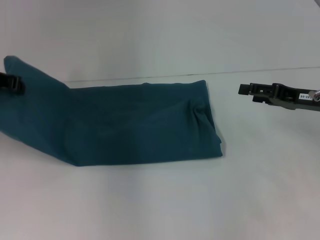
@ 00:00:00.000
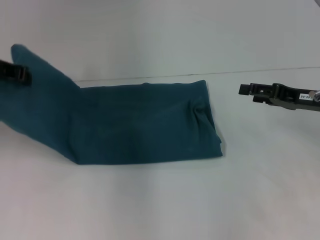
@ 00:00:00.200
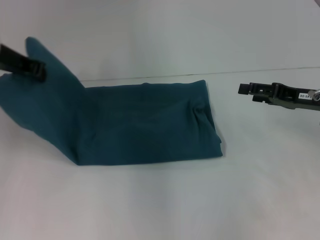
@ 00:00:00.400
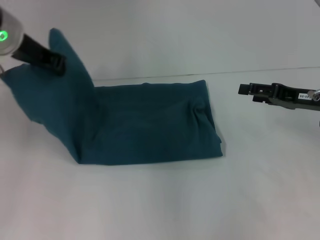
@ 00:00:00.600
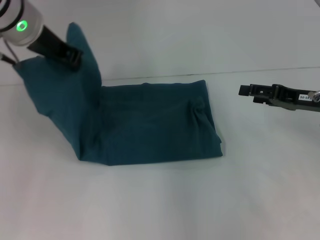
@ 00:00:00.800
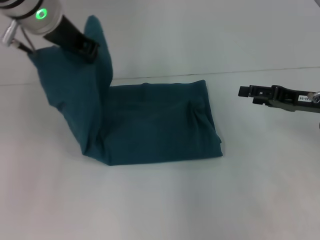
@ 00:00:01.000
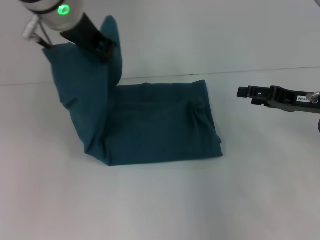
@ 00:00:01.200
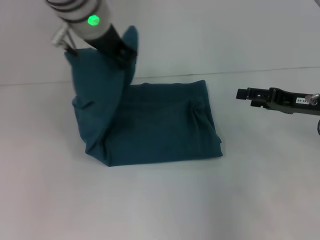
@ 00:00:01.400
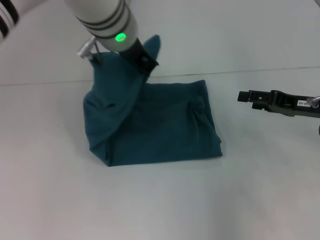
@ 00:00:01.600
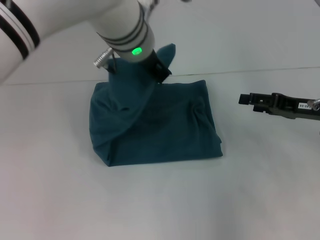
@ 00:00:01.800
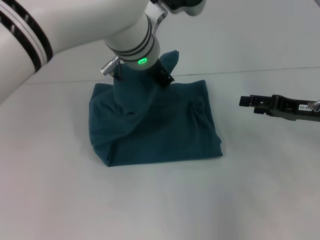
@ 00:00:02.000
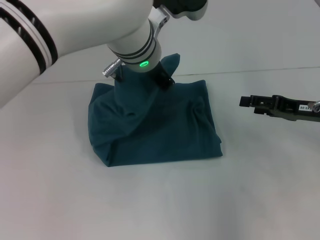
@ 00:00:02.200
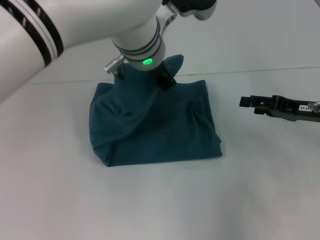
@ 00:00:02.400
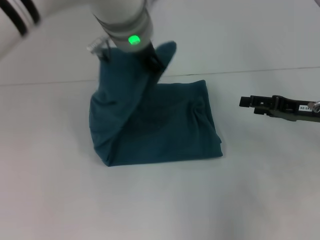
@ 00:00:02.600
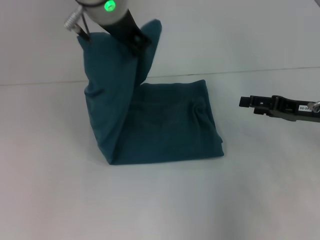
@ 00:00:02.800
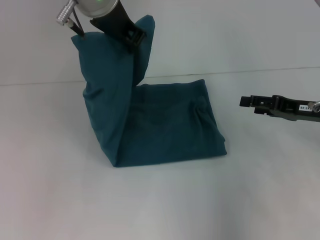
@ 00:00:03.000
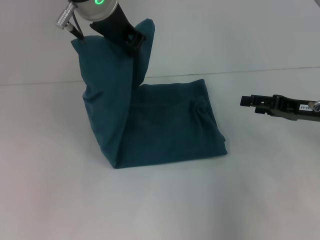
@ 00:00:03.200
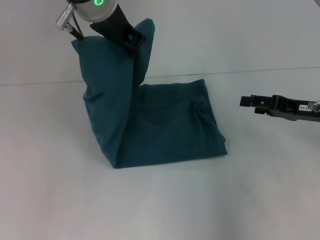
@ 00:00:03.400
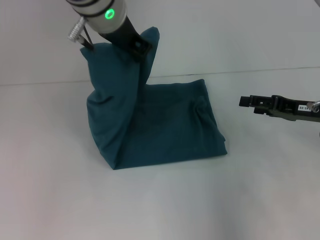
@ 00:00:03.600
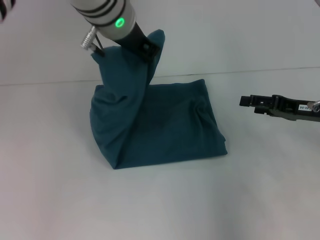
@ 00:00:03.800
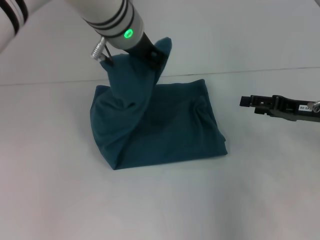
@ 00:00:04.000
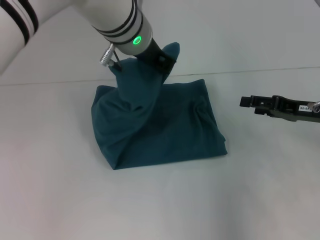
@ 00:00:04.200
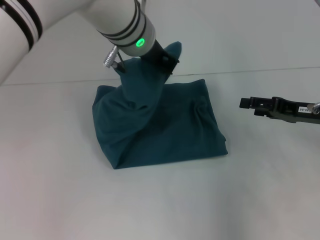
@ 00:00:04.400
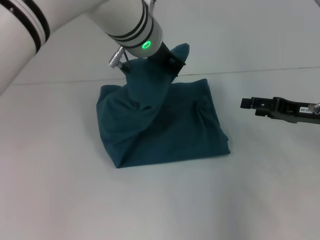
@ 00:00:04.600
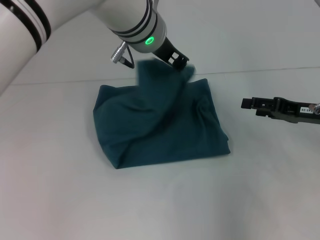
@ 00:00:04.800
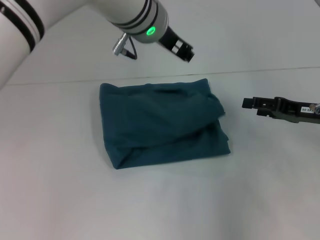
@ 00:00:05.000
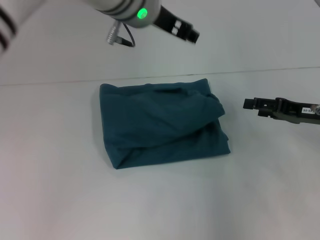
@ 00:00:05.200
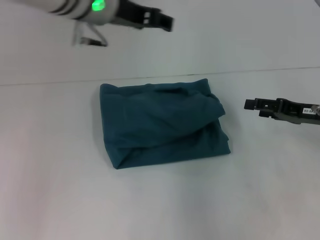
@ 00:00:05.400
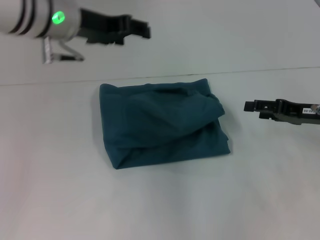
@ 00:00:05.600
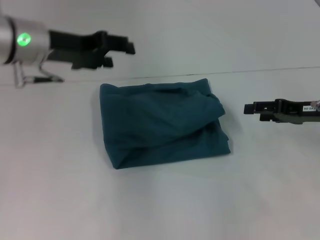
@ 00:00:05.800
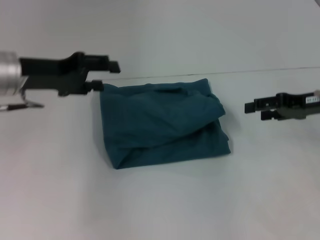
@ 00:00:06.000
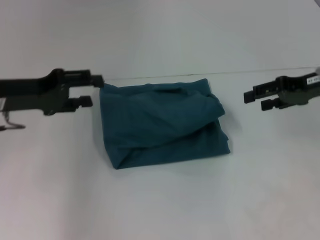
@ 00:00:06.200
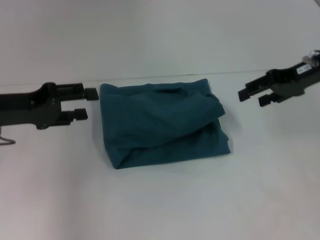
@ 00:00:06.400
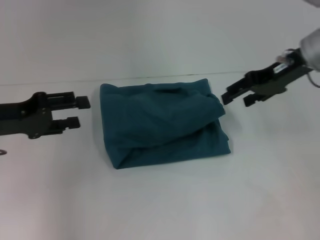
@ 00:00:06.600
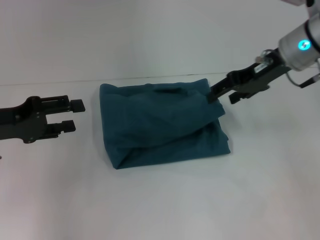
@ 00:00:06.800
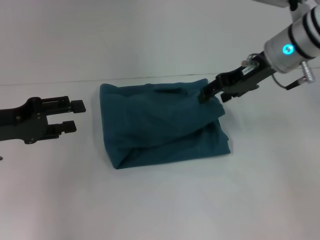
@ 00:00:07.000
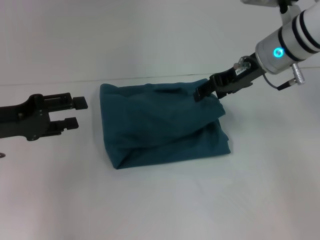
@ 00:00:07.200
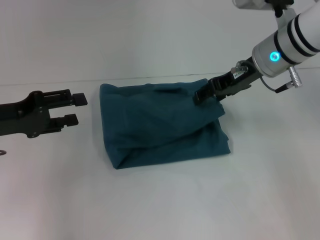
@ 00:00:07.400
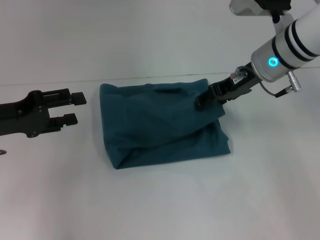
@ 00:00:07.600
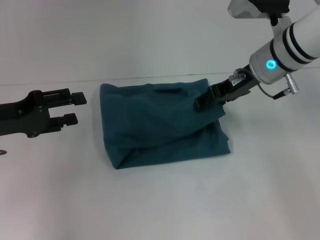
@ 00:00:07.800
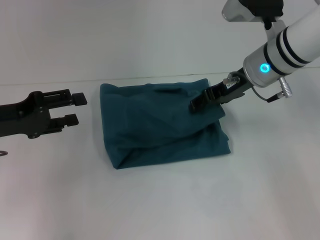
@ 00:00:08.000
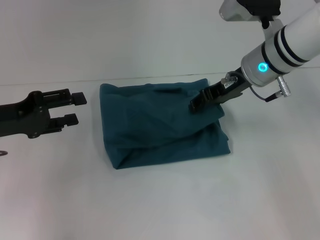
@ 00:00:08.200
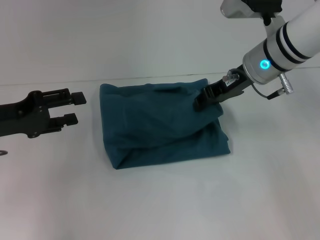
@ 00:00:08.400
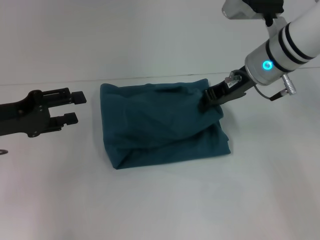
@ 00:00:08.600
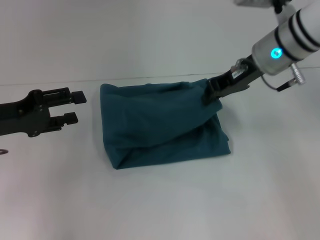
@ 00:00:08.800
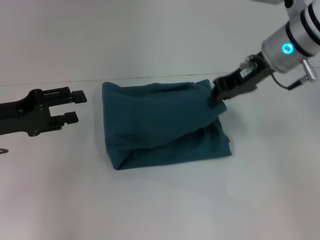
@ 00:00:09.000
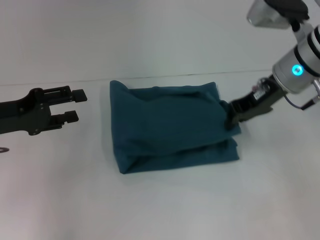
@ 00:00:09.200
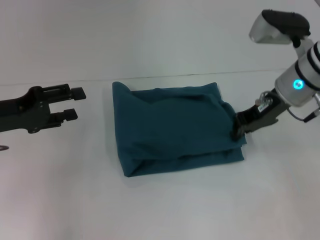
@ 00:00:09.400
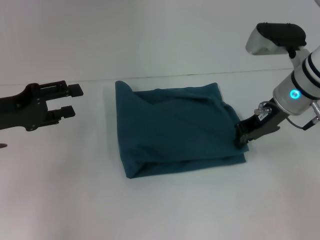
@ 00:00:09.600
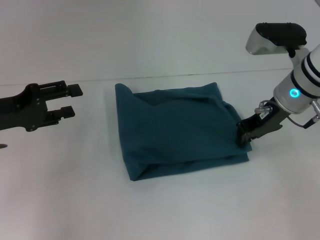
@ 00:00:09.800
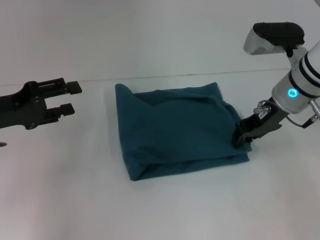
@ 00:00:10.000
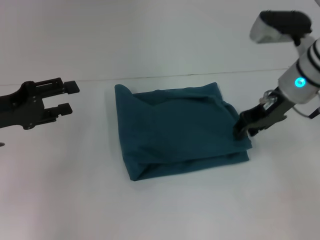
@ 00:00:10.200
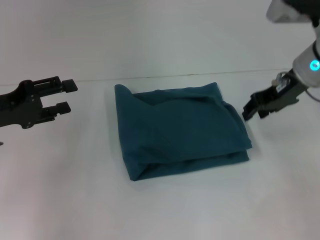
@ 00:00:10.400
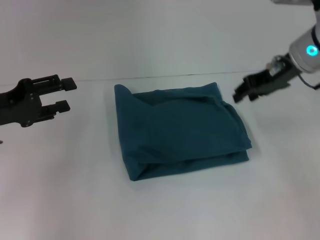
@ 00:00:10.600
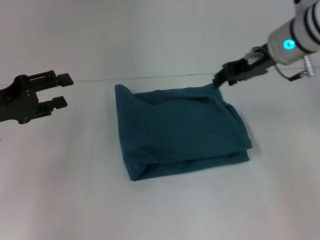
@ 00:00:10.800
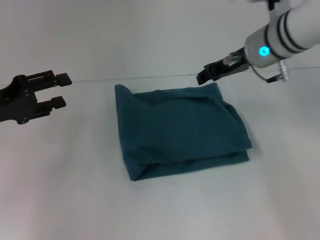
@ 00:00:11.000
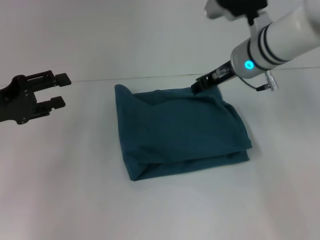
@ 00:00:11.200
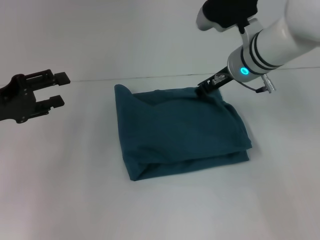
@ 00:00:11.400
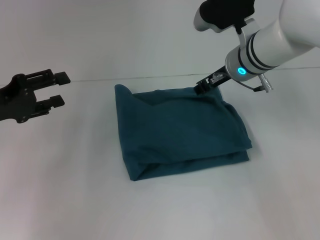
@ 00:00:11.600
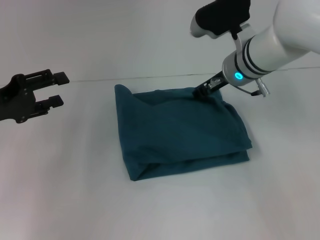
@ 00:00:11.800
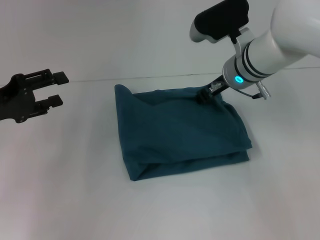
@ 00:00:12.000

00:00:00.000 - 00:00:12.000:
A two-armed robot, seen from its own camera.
Step, 00:00:00.000 - 00:00:05.000: Fold the clothes to the left.
00:00:00.000 - 00:00:01.600: The left gripper travels to the right by about 25 cm.
00:00:01.600 - 00:00:03.000: The left gripper changes place by roughly 5 cm.
00:00:03.000 - 00:00:04.400: The left gripper heads downward, covering some 5 cm.
00:00:04.400 - 00:00:06.000: The left gripper moves to the left, roughly 20 cm, and opens its fingers.
00:00:06.000 - 00:00:07.600: The left gripper goes roughly 10 cm to the left and backward. Meanwhile the right gripper goes about 15 cm to the left and forward.
00:00:07.600 - 00:00:09.000: The right gripper closes up.
00:00:09.000 - 00:00:10.400: The right gripper opens.
00:00:10.400 - 00:00:12.000: The right gripper goes approximately 10 cm to the left.

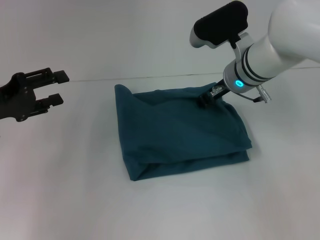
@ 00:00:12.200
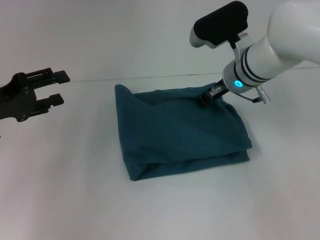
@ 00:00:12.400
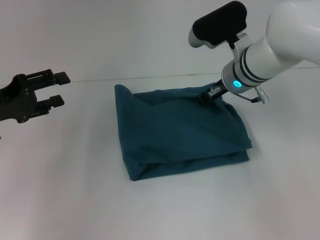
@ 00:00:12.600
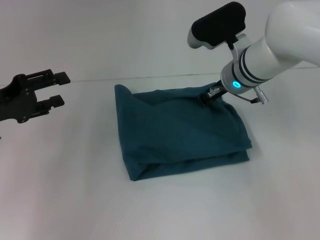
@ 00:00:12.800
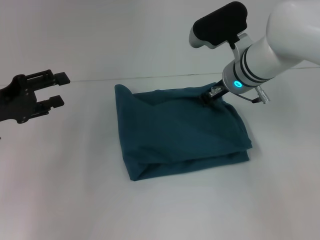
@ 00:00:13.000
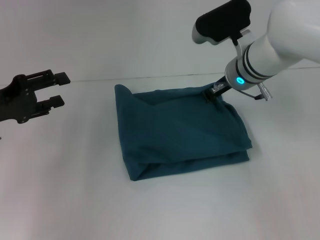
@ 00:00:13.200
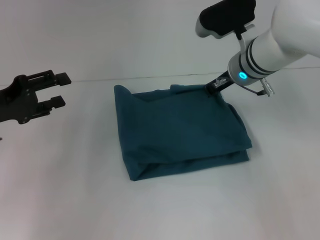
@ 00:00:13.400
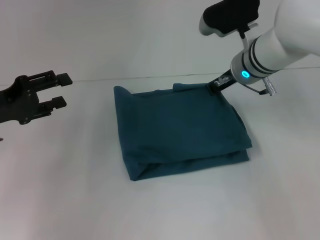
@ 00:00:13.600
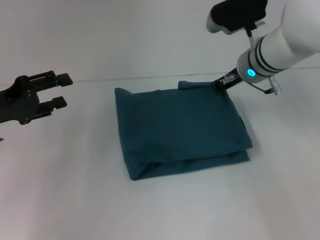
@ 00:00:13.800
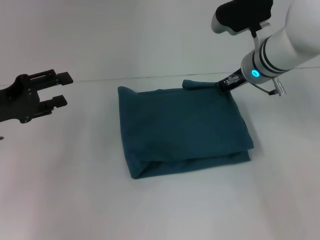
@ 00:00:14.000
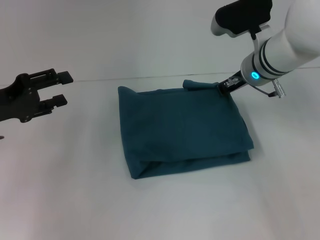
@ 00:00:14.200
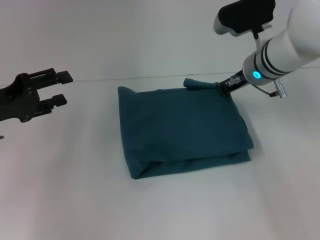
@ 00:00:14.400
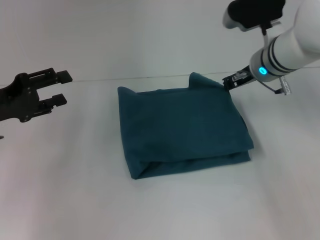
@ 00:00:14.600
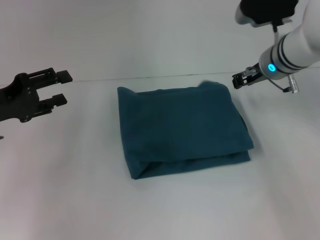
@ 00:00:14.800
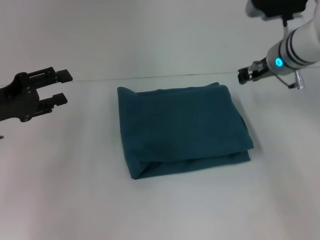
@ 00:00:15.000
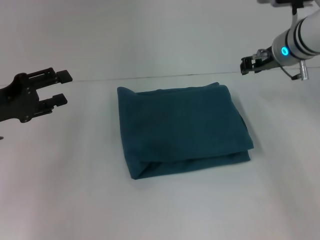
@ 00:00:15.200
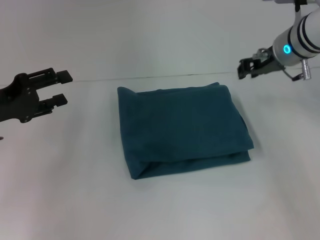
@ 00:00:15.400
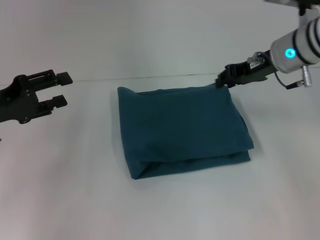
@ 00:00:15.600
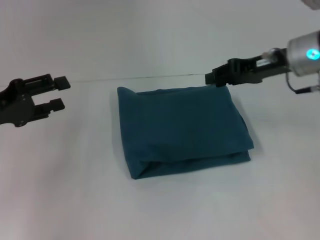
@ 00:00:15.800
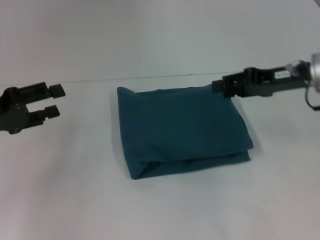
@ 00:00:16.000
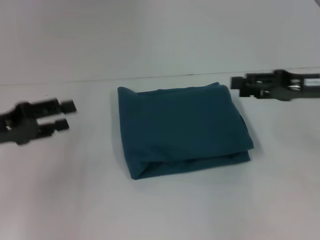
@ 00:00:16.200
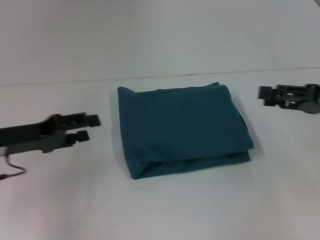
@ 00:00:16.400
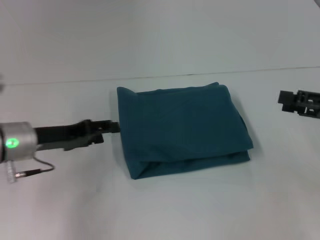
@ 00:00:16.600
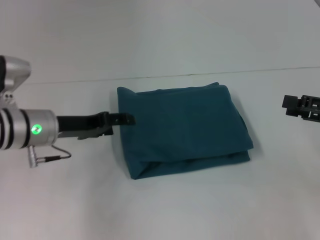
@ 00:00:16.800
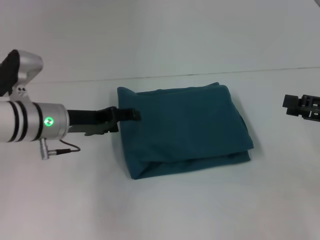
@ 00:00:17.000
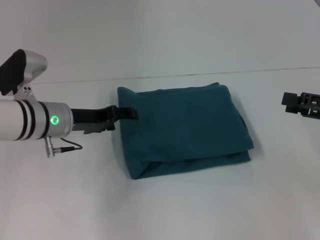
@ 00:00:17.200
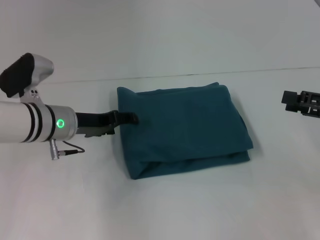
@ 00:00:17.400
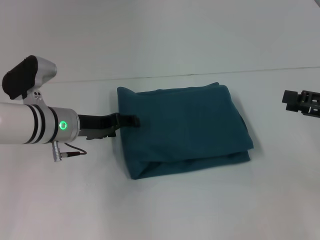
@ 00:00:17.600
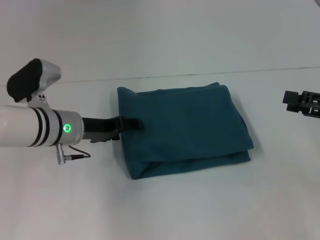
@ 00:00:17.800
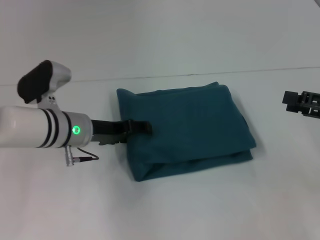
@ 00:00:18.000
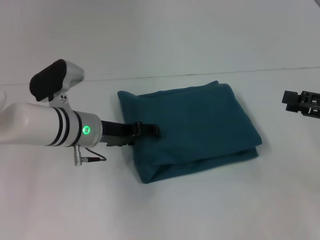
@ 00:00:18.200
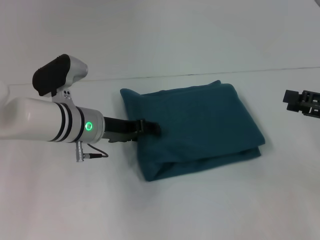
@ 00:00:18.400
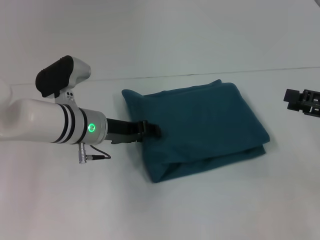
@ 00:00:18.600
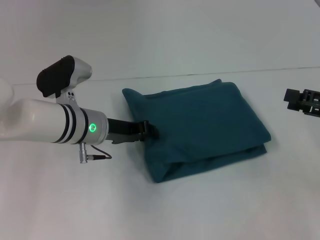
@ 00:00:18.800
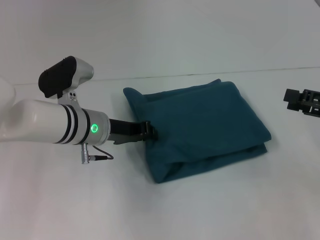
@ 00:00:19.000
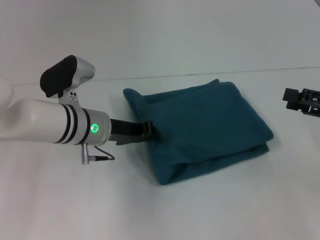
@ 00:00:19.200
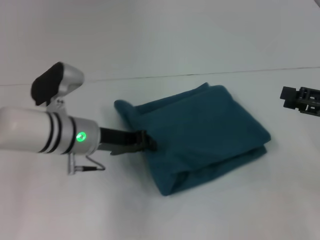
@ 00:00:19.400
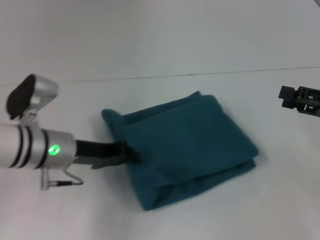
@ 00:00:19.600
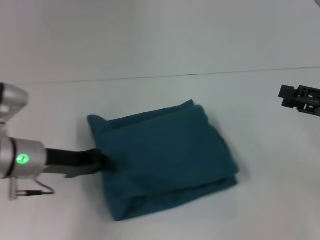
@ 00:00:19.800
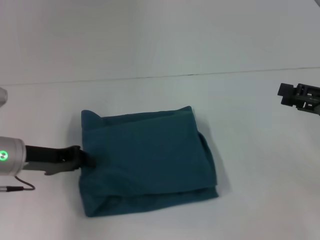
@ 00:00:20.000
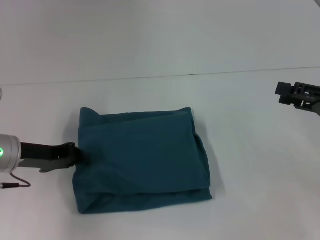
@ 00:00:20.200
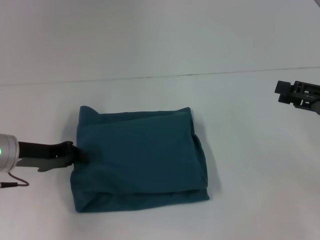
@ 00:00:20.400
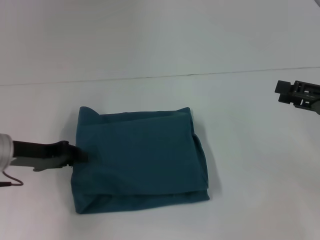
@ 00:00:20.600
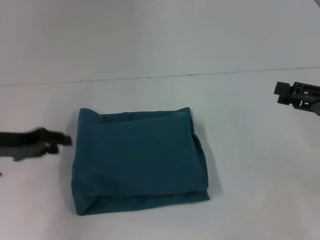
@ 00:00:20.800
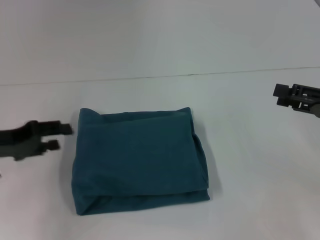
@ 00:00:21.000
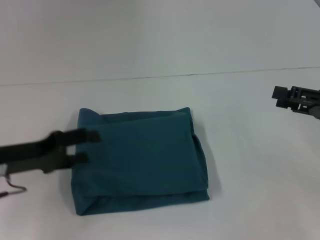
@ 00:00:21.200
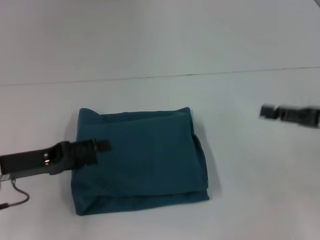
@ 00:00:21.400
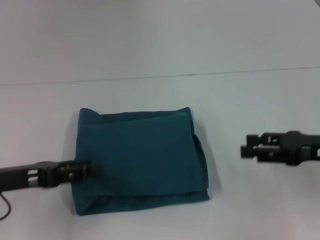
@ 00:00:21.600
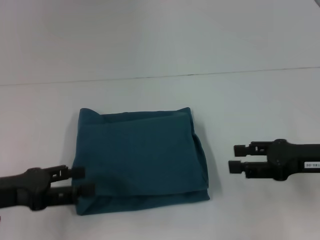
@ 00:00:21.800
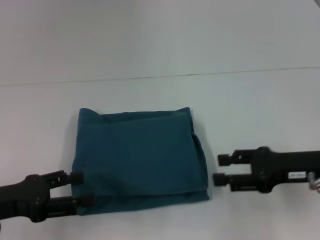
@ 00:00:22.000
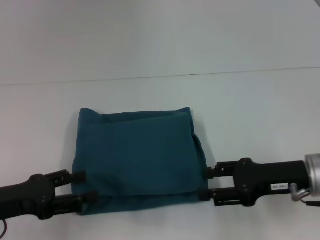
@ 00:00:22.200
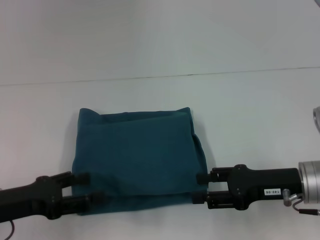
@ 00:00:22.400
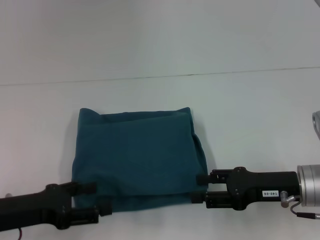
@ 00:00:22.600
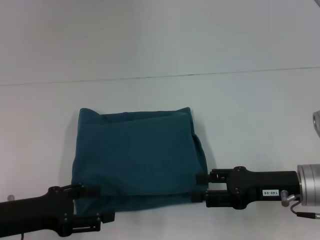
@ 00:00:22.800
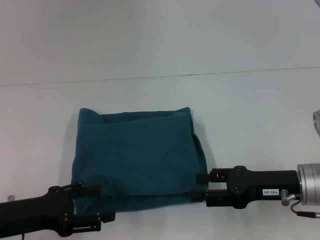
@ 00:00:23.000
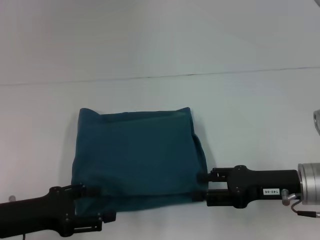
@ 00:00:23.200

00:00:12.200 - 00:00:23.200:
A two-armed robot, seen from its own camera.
00:00:12.200 - 00:00:13.800: The right gripper closes its fingers.
00:00:13.800 - 00:00:15.400: The right gripper heads to the right, covering roughly 5 cm.
00:00:15.400 - 00:00:17.000: The left gripper goes about 10 cm to the right. The right gripper travels backward and to the right by about 20 cm, and opens its fingers.
00:00:17.000 - 00:00:18.400: The left gripper travels to the right by approximately 5 cm.
00:00:18.400 - 00:00:20.000: The left gripper shifts approximately 10 cm to the left, and closes.
00:00:20.000 - 00:00:21.600: The left gripper goes approximately 5 cm backward, and opens its fingers.
00:00:21.600 - 00:00:23.200: The left gripper ends up approximately 5 cm from where it was, while the right gripper moves to the left, about 5 cm.
